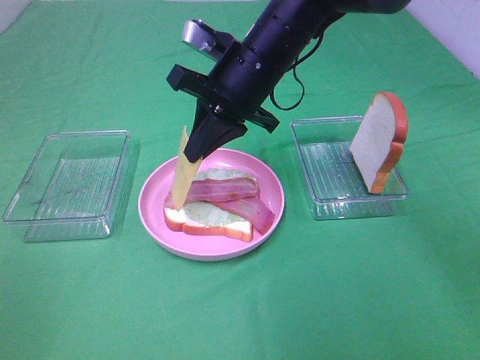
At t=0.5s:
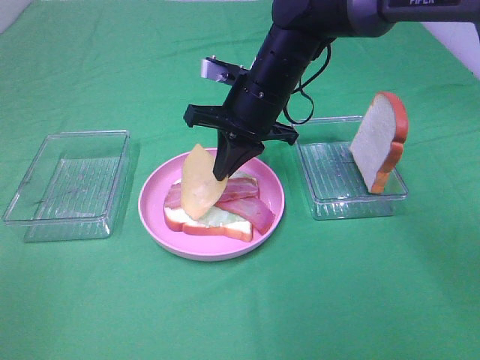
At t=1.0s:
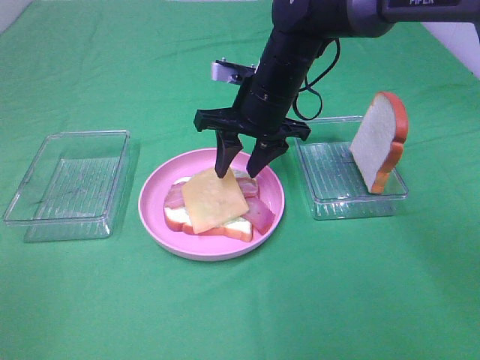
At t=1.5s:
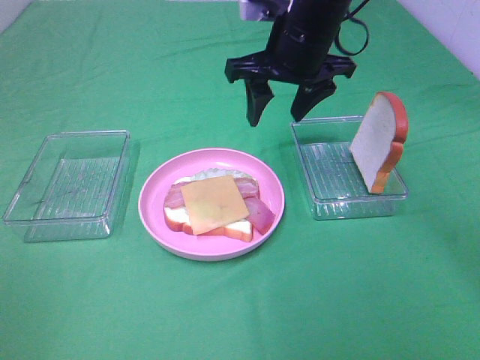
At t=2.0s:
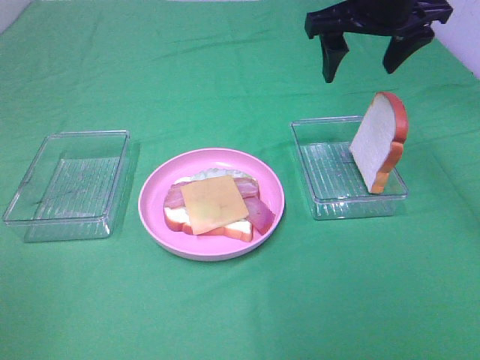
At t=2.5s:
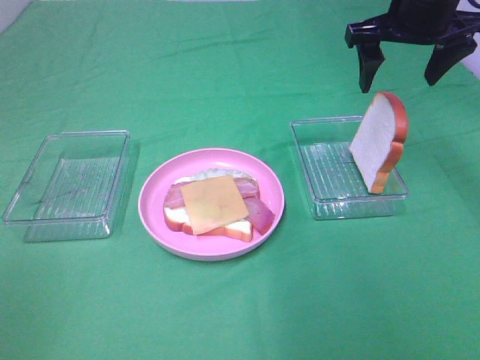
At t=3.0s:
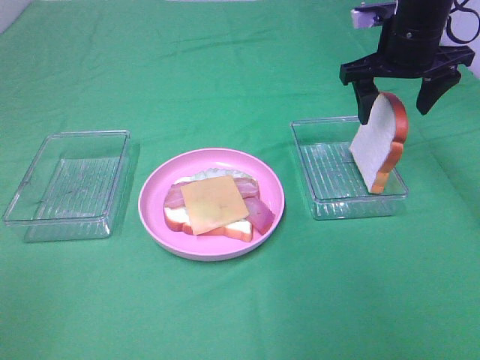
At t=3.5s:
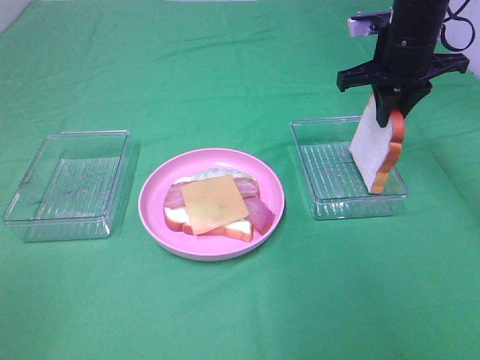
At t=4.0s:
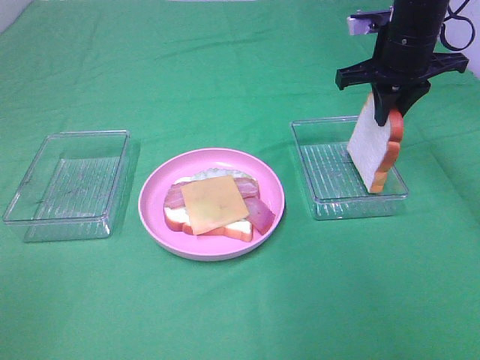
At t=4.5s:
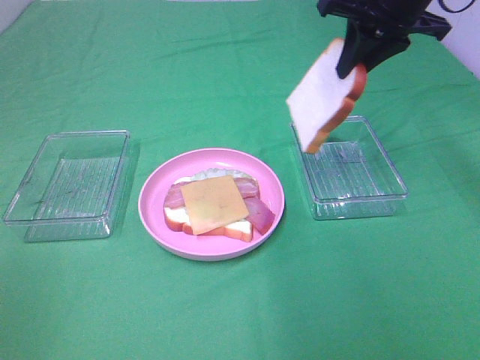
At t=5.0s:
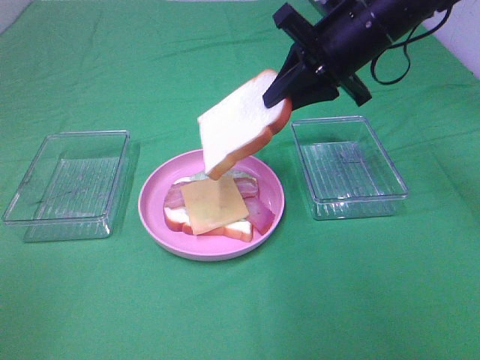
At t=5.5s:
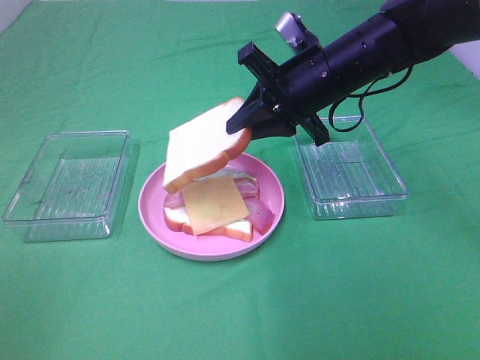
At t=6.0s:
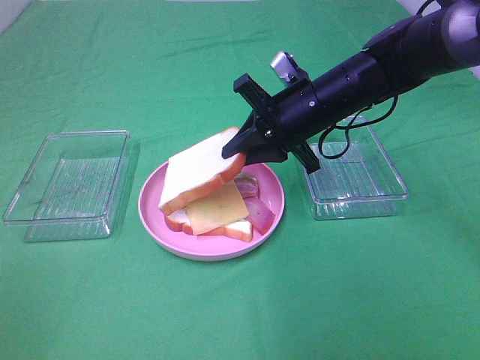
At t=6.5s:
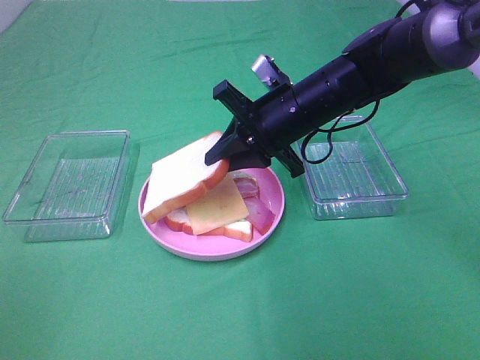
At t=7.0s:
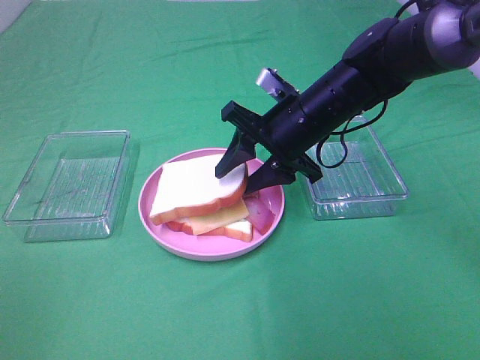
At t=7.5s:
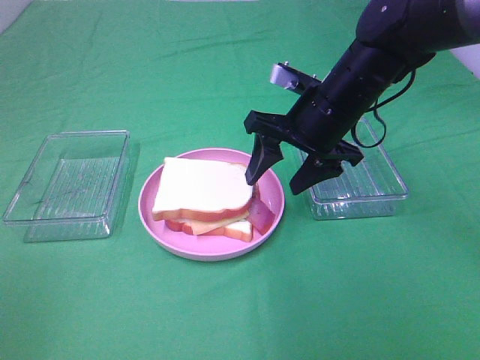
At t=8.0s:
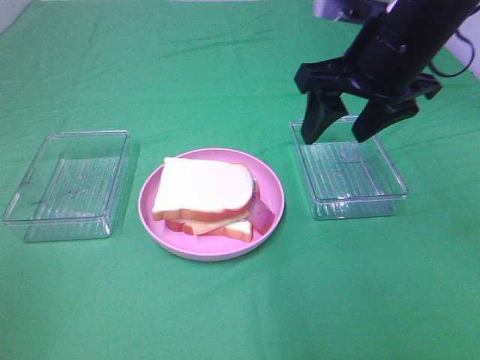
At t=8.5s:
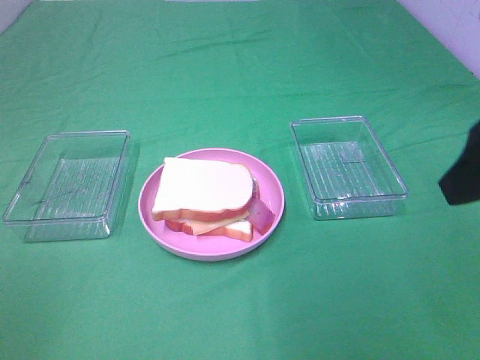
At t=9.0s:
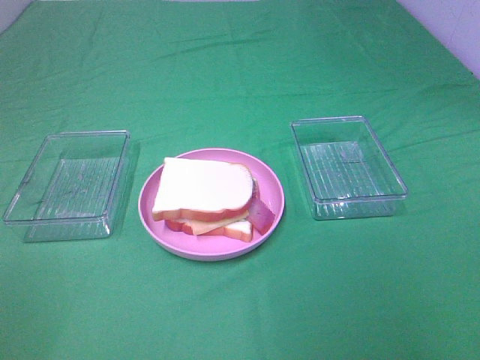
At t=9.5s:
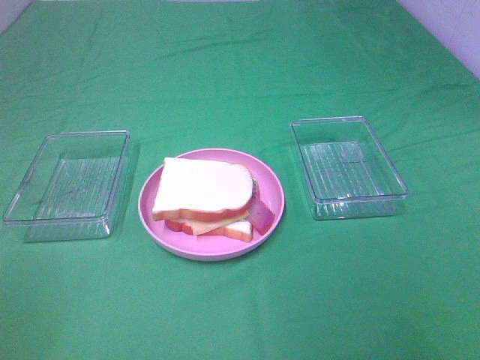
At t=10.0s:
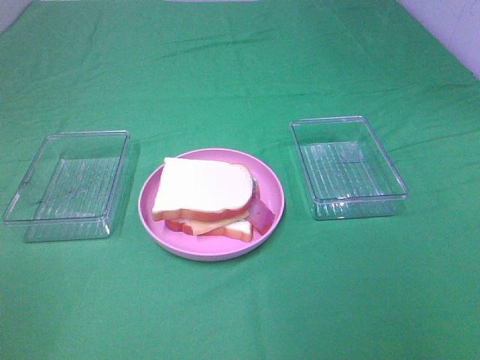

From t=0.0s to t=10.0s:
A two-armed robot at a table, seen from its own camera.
Task of the whole recording: Make sandwiches.
Step, from t=1.5s to t=3.5s: Right hand:grab the bread slice.
Step, from t=4.0s to t=7.0s: Right hand:place the bread slice on the cheese slice.
From t=0.0s to t=2.0s: The right gripper heads to the right and upward, covering some 15 cm, and opens up.
From t=2.0s to t=4.0s: The right gripper moves downward, roughly 5 cm, and closes.
From t=4.0s to t=6.0s: The right gripper moves to the left, downward and backward, approximately 15 cm.
From t=6.0s to t=8.0s: The right gripper heads upward and backward, covering roughly 15 cm, and opens its fingers.
From t=8.0s to t=10.0s: The right gripper goes some 35 cm backward and to the right.

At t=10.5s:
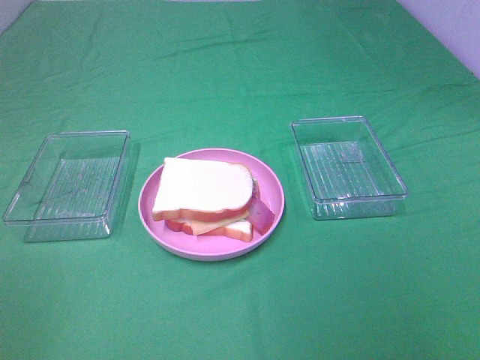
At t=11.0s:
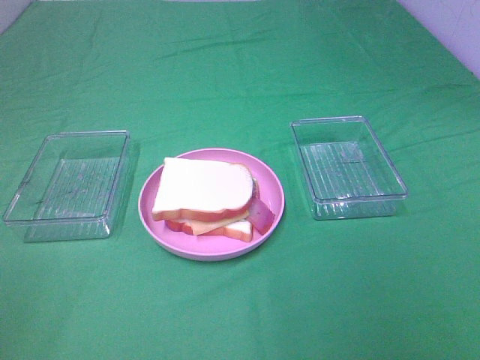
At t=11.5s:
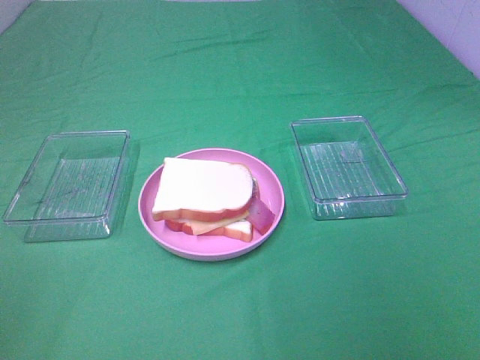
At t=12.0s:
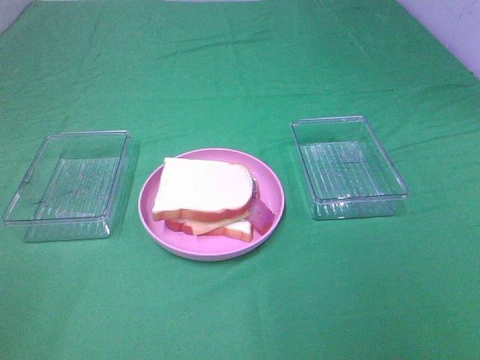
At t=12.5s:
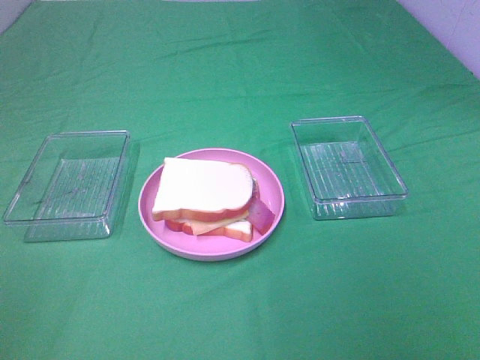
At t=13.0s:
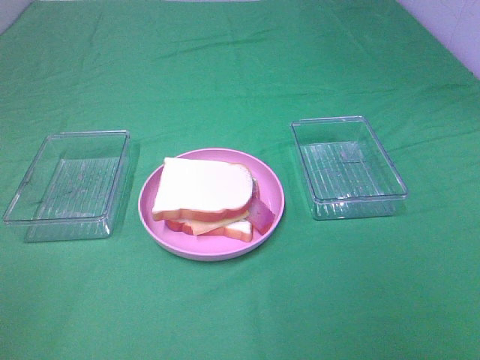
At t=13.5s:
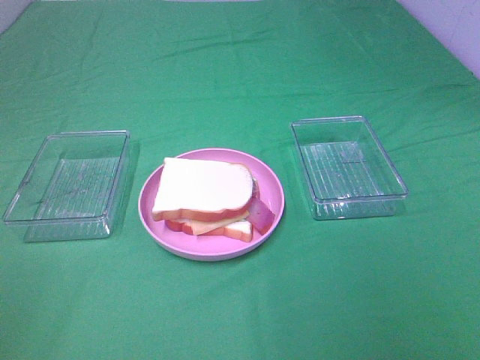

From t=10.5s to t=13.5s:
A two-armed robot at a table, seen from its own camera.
Task of the whole recording: Make sandwiches.
From t=12.0s to t=13.5s: The two grippers keep their place.

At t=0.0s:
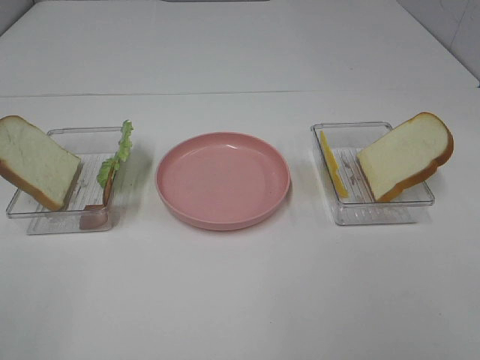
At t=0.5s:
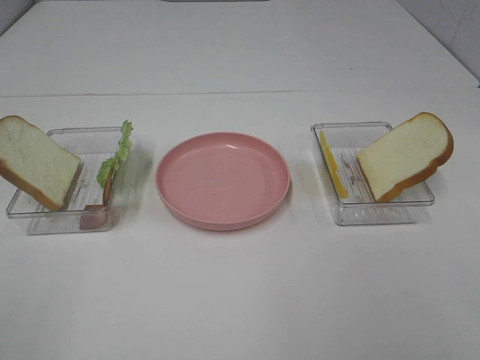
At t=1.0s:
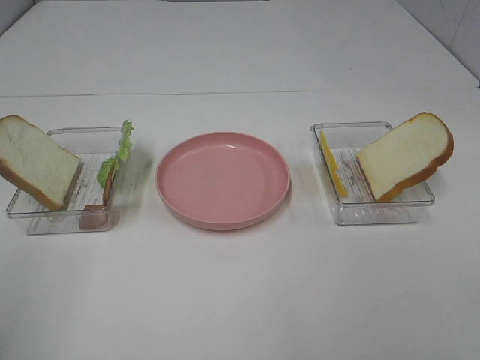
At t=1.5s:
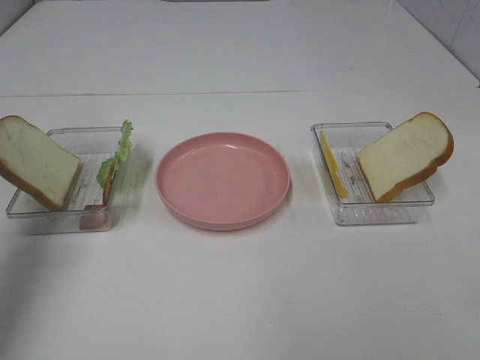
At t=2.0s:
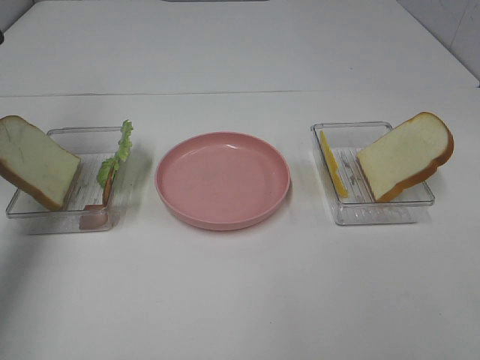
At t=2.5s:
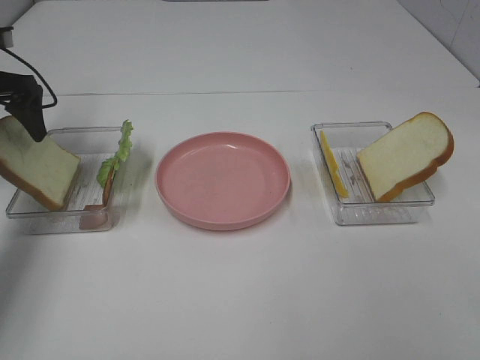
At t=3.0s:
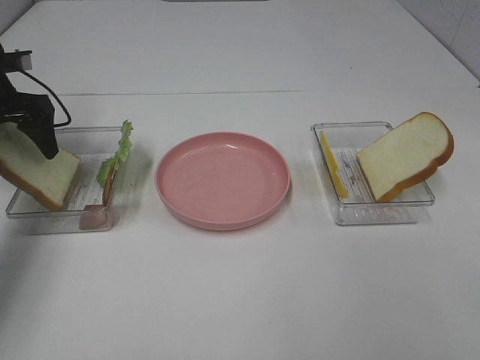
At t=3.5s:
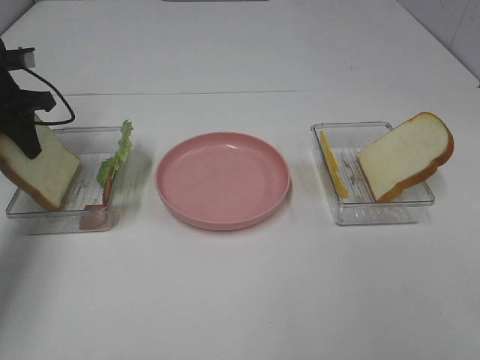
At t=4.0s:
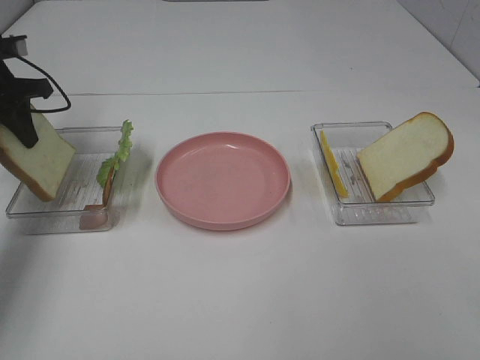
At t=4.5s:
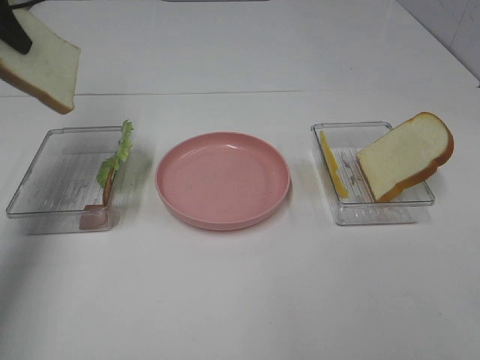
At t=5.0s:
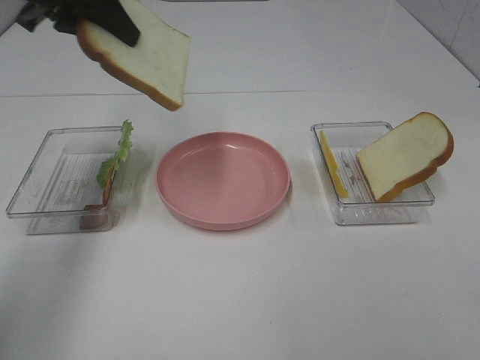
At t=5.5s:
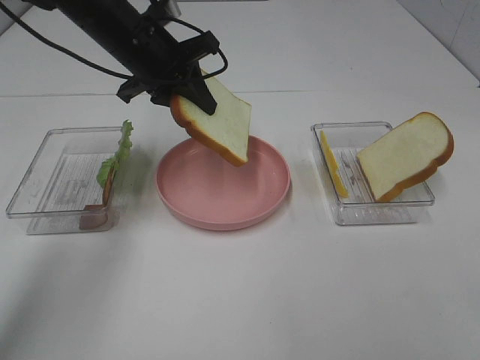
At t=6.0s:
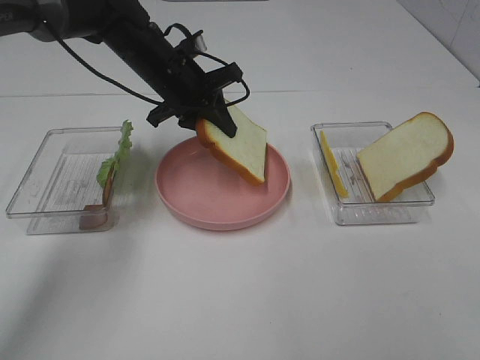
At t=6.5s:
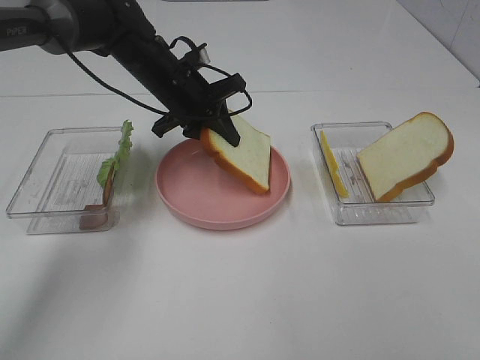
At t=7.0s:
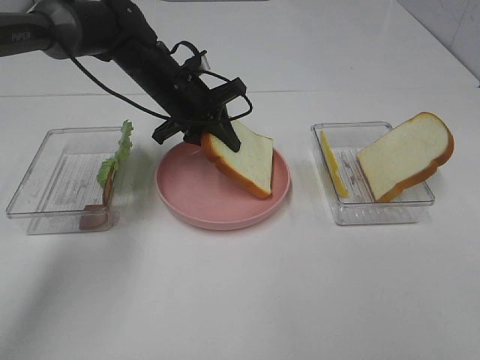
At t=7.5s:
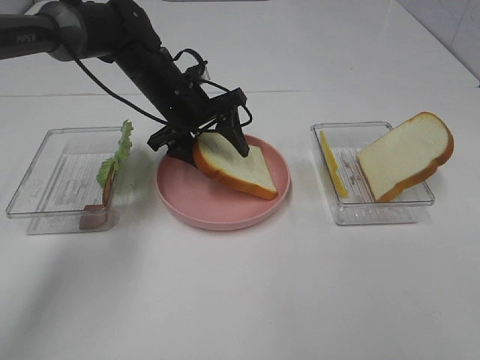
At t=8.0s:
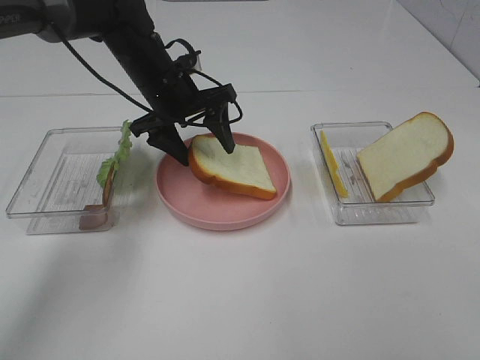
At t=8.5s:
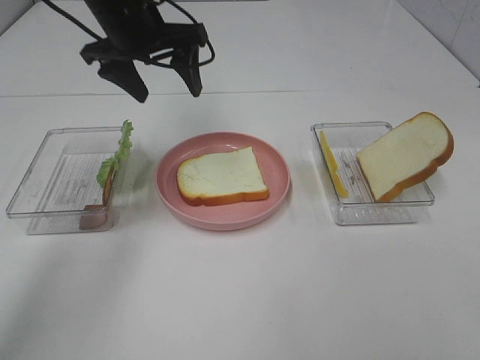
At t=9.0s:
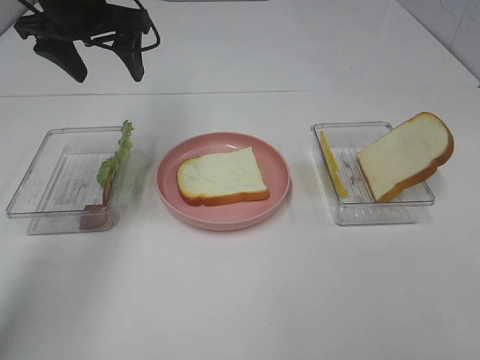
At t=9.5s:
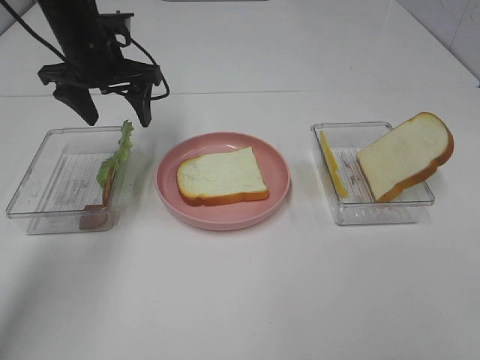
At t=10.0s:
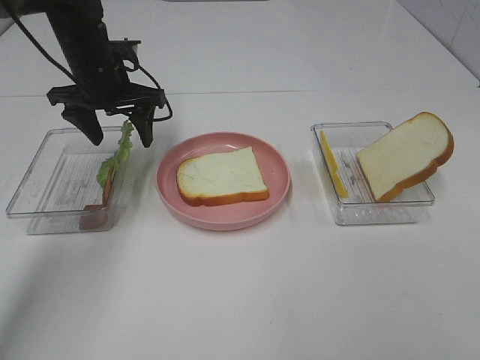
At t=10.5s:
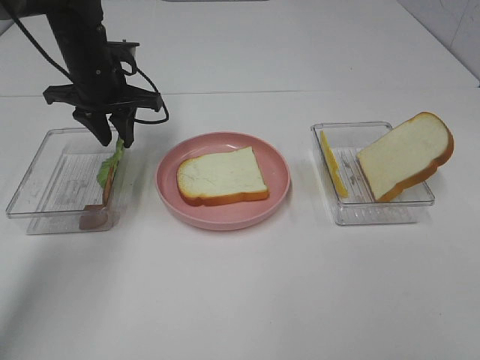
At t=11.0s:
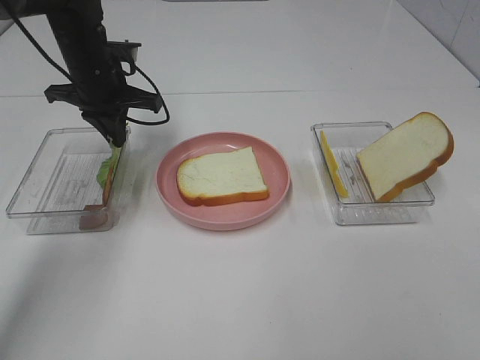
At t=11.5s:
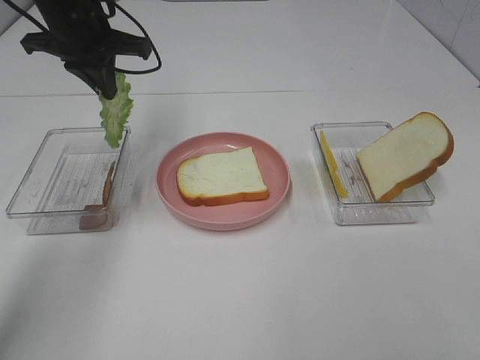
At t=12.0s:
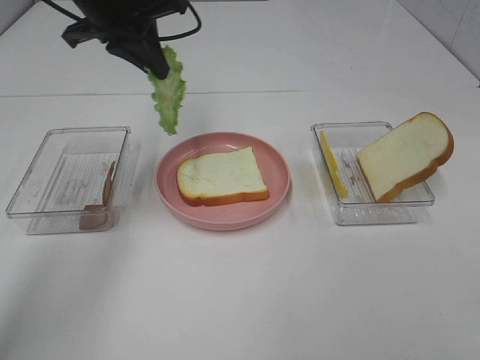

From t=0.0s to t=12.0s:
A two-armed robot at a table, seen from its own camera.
Task of the whole recording: Make sandwiches.
Step, from t=0.0s to t=3.5s: Left hand:grab the bread slice.
Step, from t=4.0s to t=8.0s: Left hand:Place the bread slices on the plate.
Step, from t=8.5s to t=11.0s: Left hand:grab the lettuce slice.
From t=0.0s to t=2.0s: The left gripper goes about 40 cm forward.
From t=2.0s to t=4.0s: The left gripper travels downward and forward by about 10 cm, and closes.
From t=4.0s to t=6.0s: The left gripper shifts some 25 cm to the right.
From t=6.0s to t=8.0s: The left gripper opens up.
From t=8.0s to t=10.0s: The left gripper is displaced to the left by some 10 cm, and moves some 10 cm upward and comes back.
From t=10.0s to t=12.0s: The left gripper travels upward by about 10 cm, and closes up.
